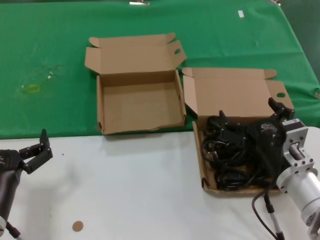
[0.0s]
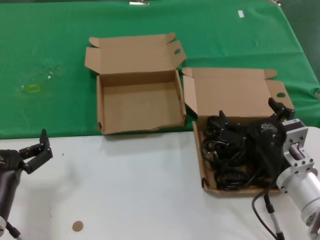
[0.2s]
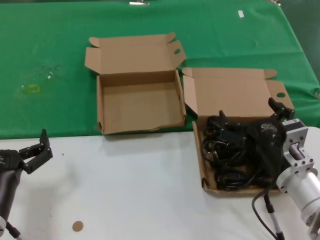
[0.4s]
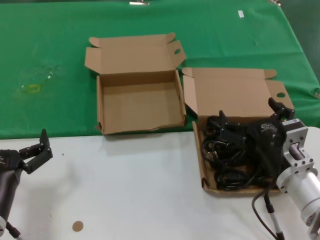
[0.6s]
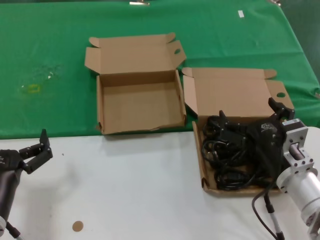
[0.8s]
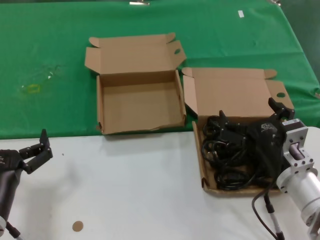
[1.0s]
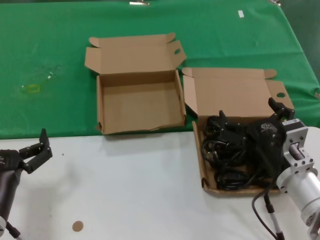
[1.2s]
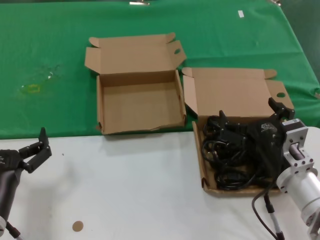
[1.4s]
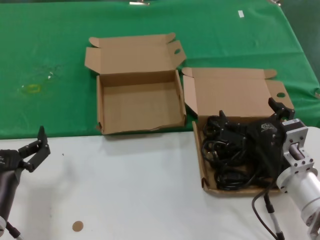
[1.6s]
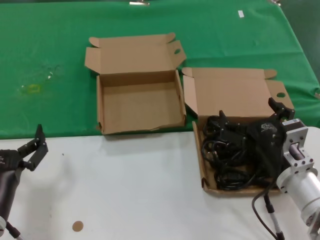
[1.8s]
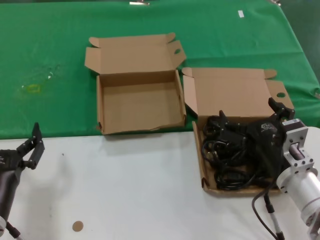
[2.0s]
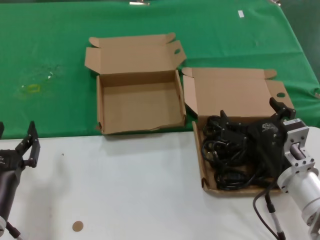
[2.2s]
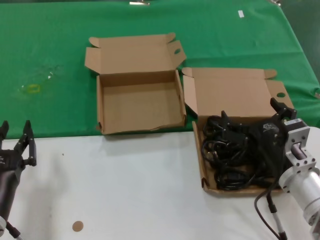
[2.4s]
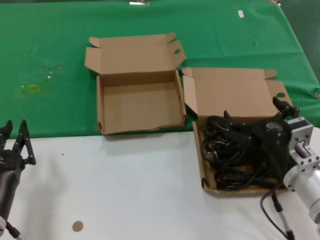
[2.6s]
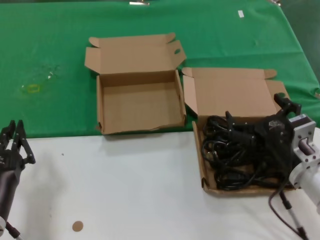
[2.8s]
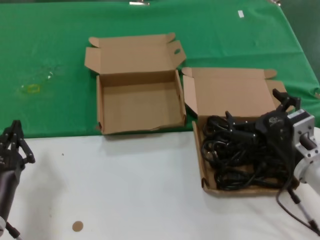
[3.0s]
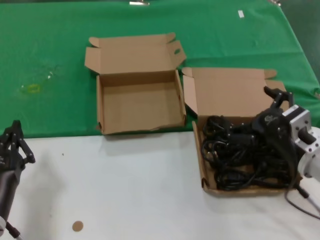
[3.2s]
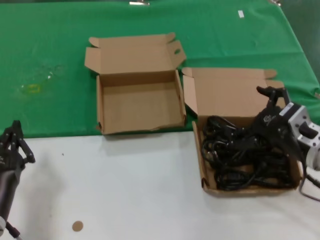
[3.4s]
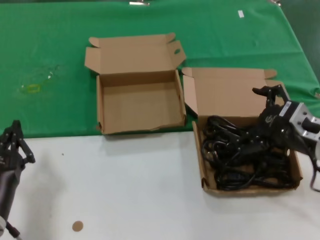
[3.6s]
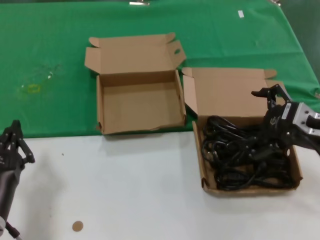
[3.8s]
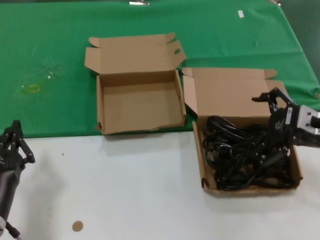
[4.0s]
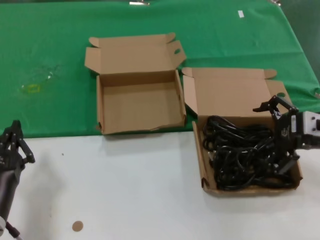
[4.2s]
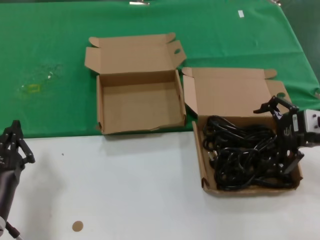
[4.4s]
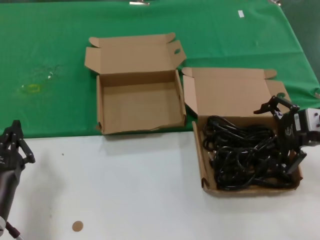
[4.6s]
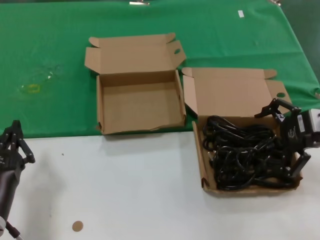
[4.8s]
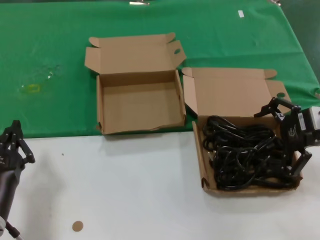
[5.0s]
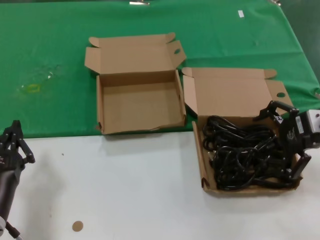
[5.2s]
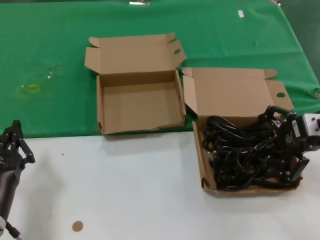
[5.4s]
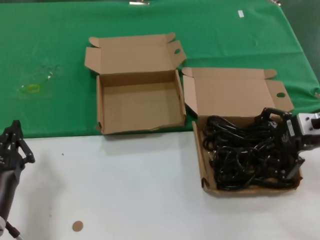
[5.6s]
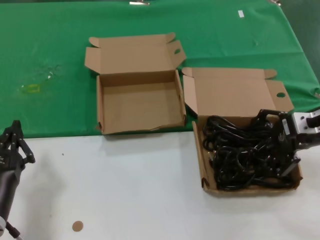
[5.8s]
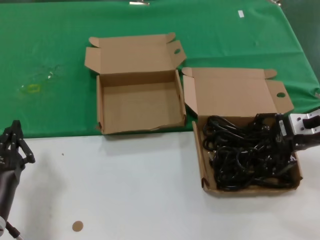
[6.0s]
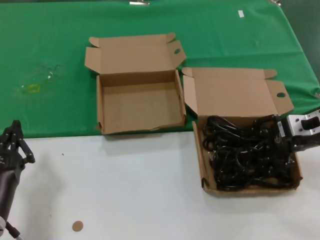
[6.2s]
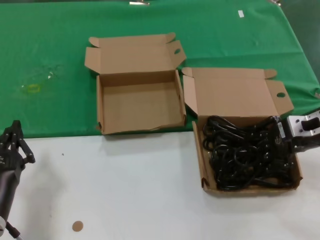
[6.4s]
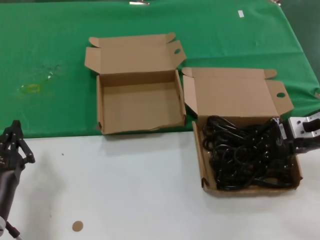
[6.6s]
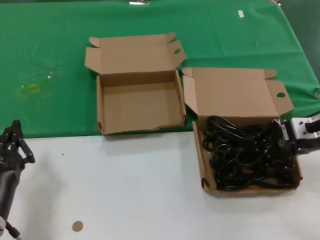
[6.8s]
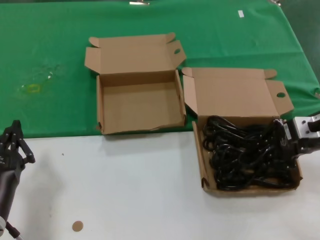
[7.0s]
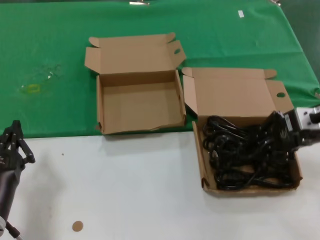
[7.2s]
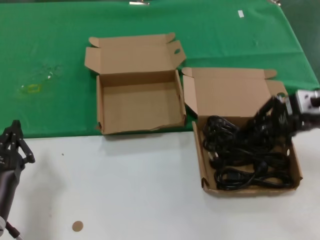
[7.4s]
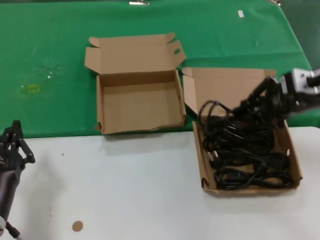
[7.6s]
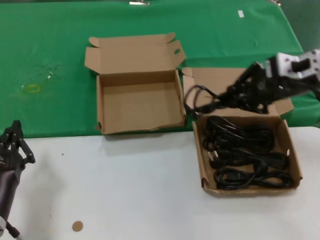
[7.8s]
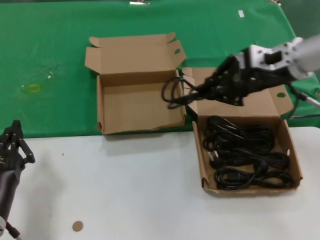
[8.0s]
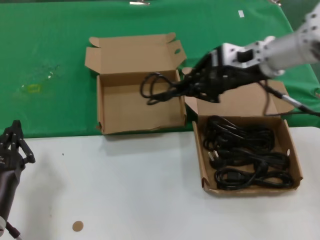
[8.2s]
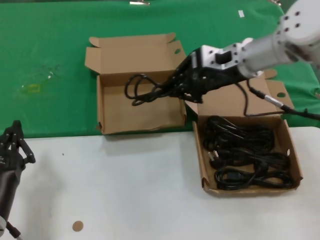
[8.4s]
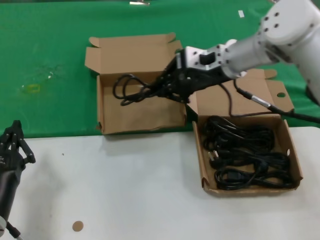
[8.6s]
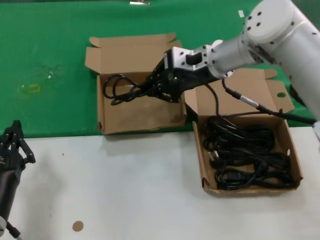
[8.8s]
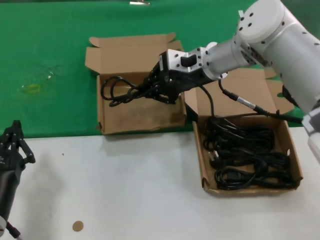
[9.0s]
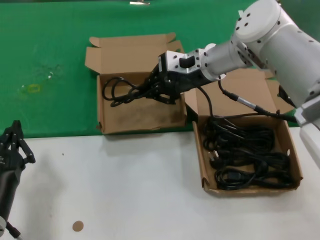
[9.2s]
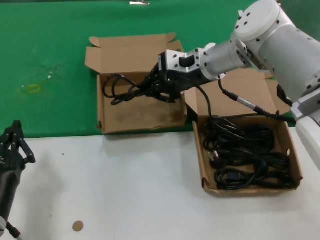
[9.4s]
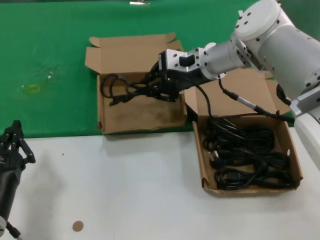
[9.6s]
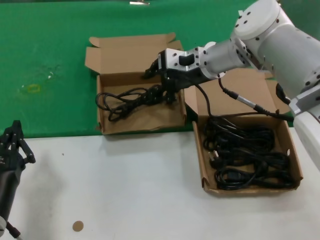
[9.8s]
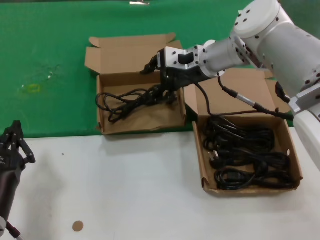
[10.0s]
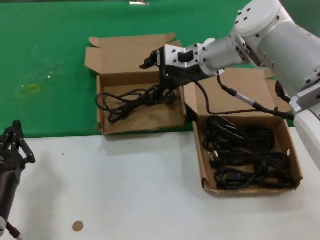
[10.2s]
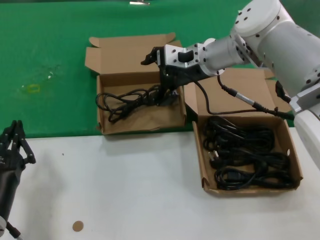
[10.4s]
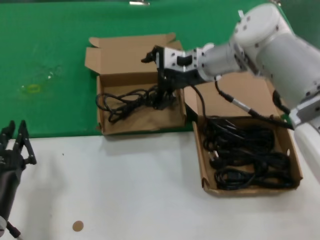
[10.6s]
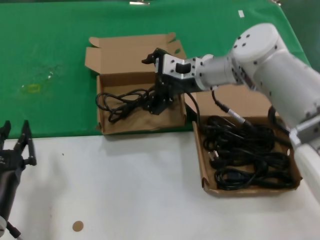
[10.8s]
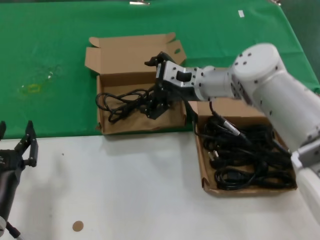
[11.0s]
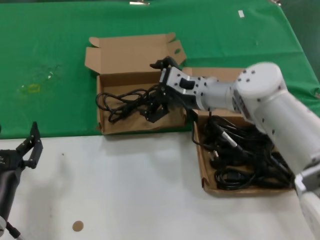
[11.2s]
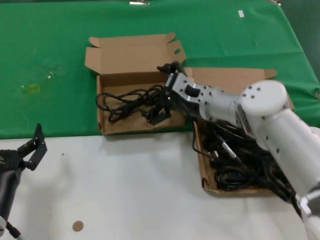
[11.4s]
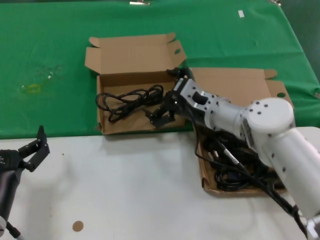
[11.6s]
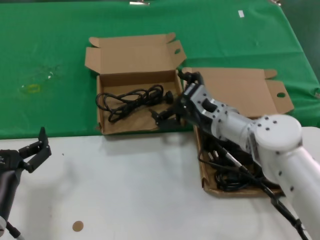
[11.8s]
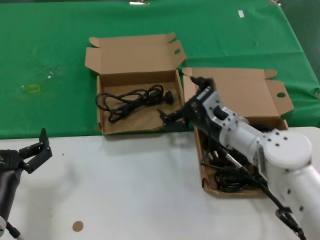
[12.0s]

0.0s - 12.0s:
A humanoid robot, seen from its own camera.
Task of the whole recording: take the parts from the box containing them and put them into an empty box.
Step, 0.0s - 6.8s: Grasp the data cable.
Step, 7.0s - 9.8s: Place the data cable in the another box.
0.0s - 1.6s: The two hands keep their place.
1.6s - 3.0s: The hands stay close to where they were, moving slightly.
3.0s - 4.4s: The right hand is displaced upward, to the right and forward by about 15 cm.
4.4s - 6.0s: The hands stay close to where they were, moving slightly.
6.0s - 7.6s: The right hand heads upward, covering some 10 cm.
7.6s - 9.0s: The right hand moves to the left and forward, about 25 cm.
9.0s - 10.4s: The two hands keep their place.
10.4s - 12.0s: The right hand is displaced downward and backward by some 20 cm.

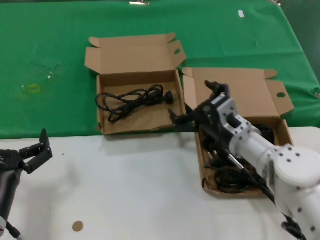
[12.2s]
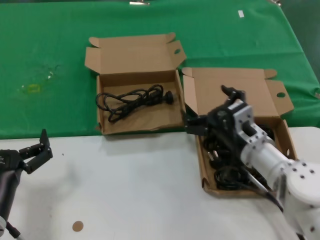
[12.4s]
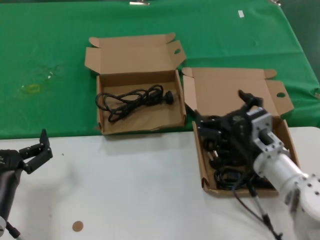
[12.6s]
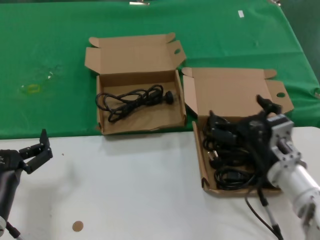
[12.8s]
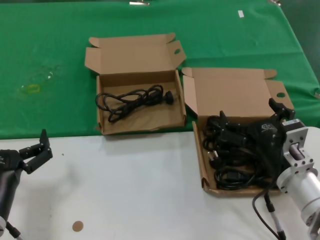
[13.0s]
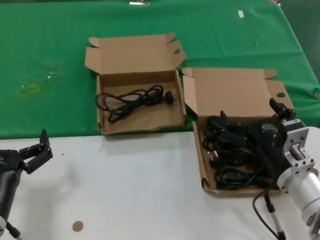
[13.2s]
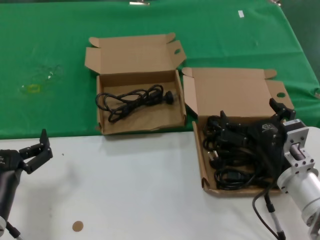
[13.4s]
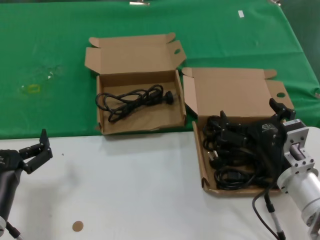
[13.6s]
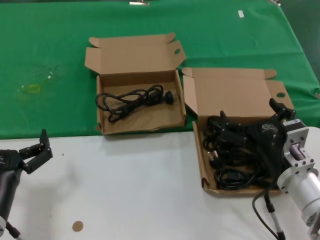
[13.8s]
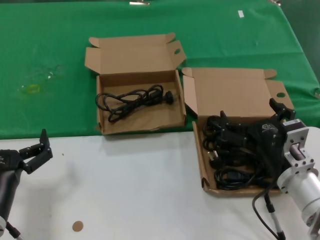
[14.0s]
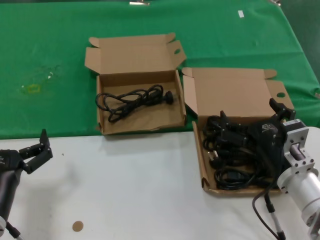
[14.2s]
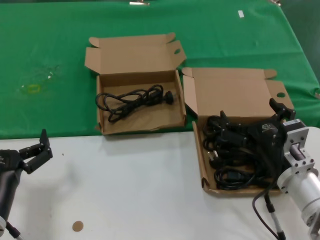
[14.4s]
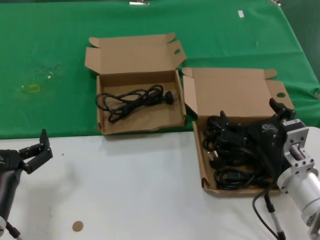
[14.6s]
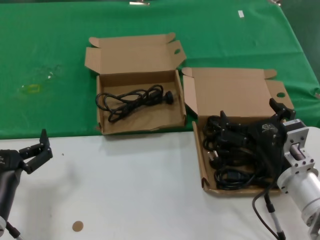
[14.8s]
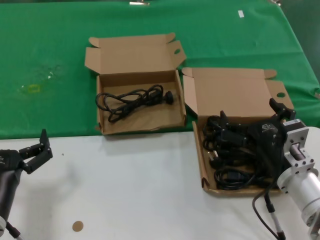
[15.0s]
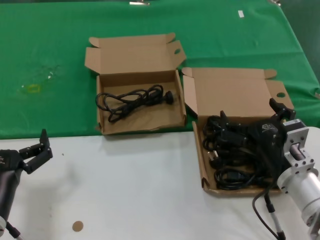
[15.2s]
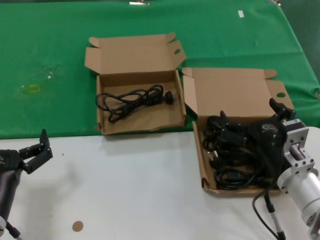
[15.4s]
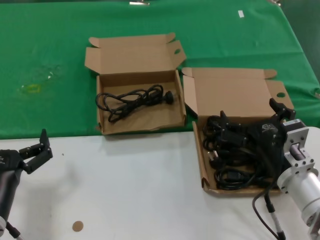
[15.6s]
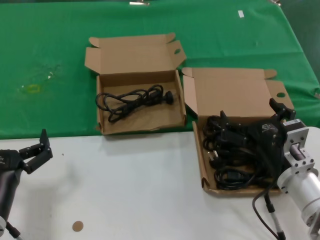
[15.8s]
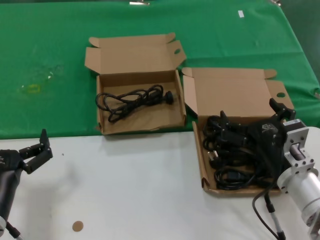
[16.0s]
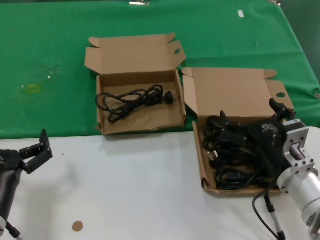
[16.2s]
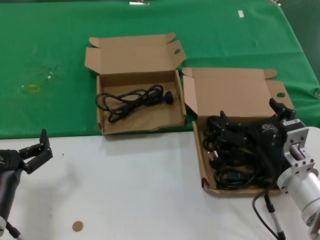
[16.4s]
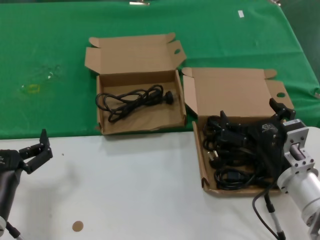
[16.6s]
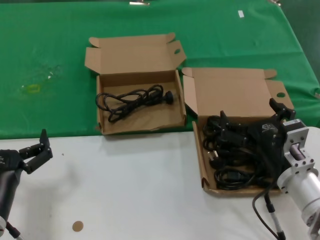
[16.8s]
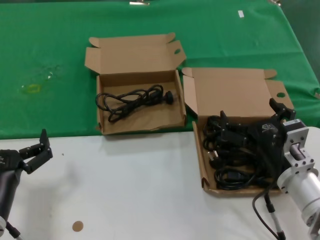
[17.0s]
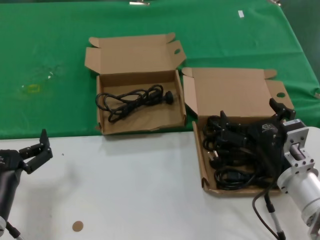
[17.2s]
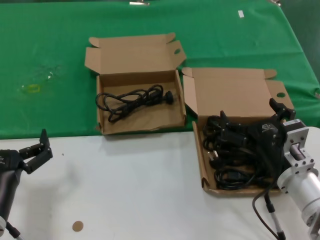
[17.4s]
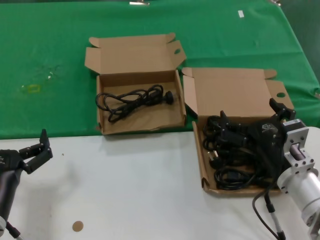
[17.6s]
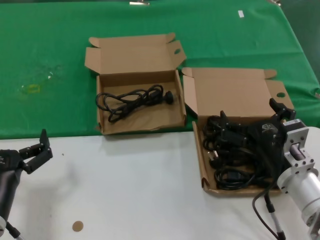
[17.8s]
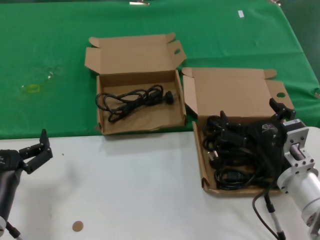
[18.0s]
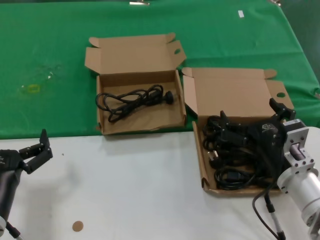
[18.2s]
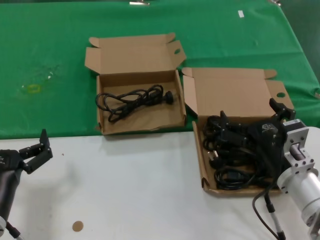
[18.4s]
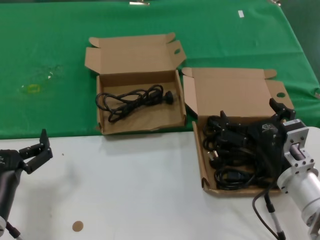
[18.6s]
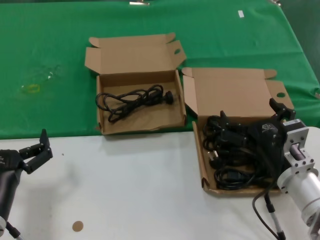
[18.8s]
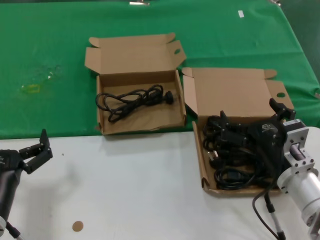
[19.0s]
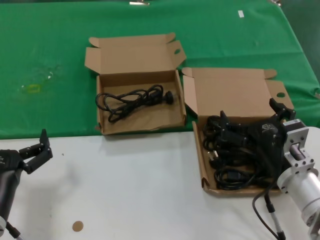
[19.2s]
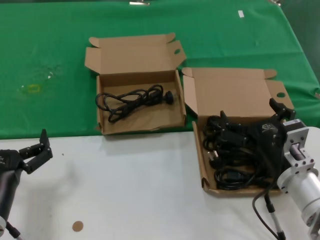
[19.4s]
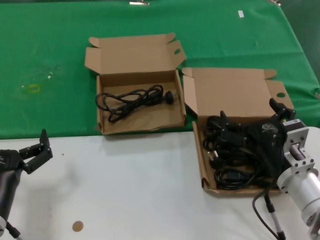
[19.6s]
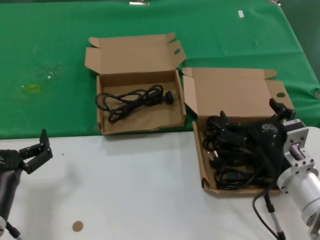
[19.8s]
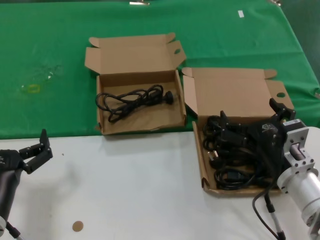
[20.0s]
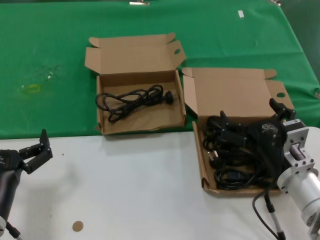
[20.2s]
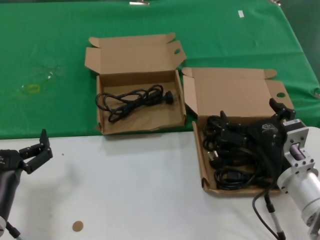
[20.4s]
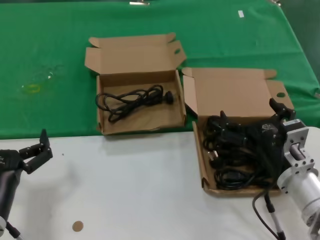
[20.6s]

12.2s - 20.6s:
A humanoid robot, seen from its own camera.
Task of the whole recording: take the parts from the box containing them and put them into an empty box.
12.2s - 13.6s: The right hand heads backward, covering approximately 10 cm.
13.6s - 20.6s: Both hands stay put.

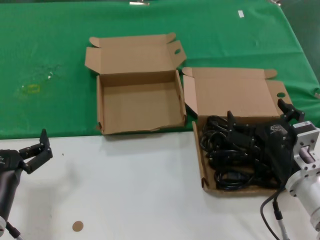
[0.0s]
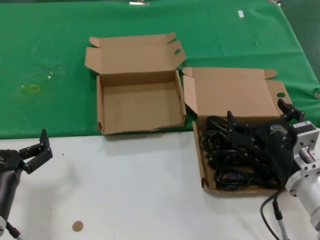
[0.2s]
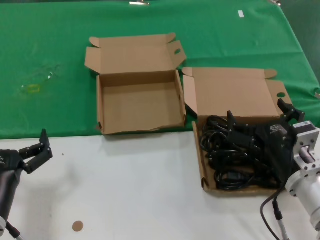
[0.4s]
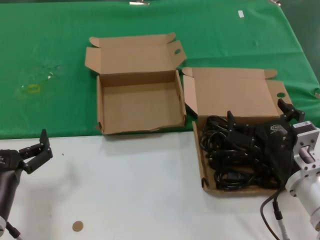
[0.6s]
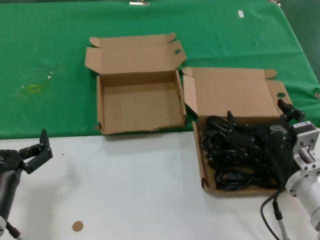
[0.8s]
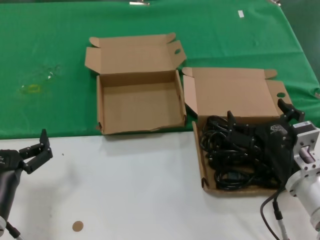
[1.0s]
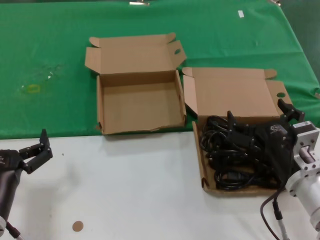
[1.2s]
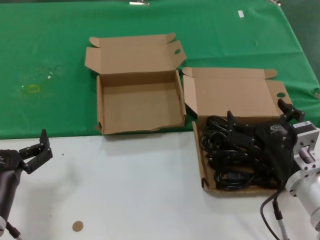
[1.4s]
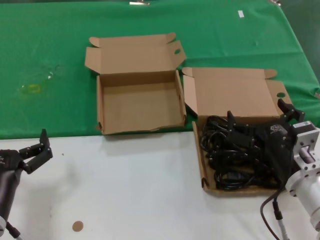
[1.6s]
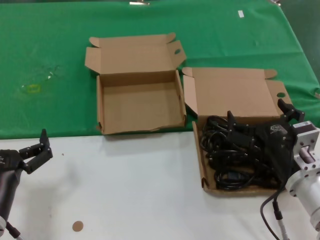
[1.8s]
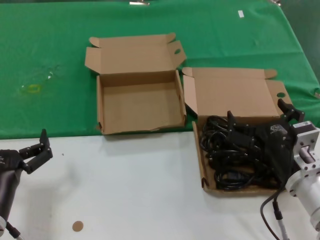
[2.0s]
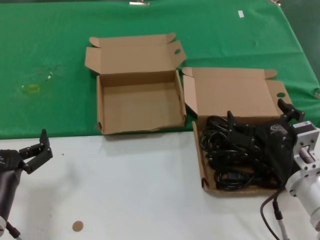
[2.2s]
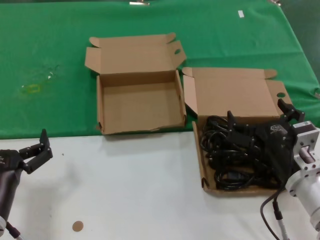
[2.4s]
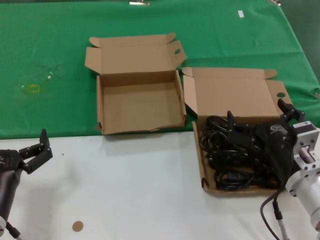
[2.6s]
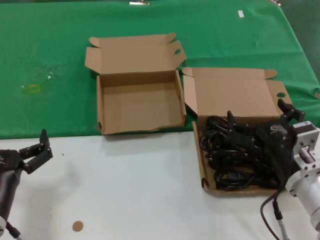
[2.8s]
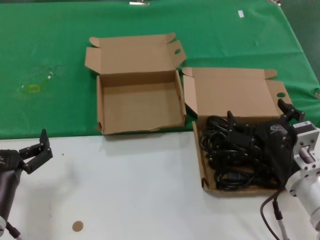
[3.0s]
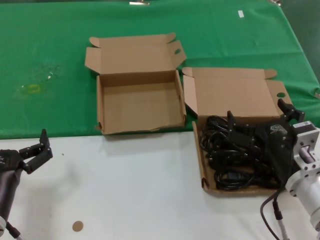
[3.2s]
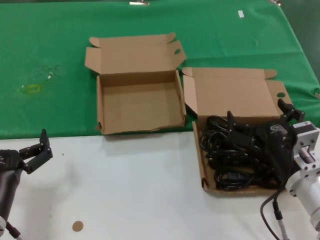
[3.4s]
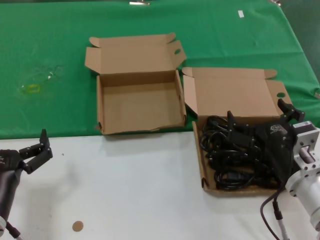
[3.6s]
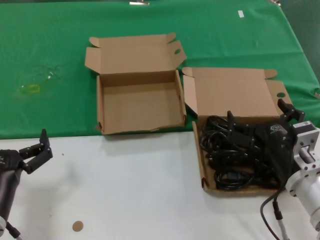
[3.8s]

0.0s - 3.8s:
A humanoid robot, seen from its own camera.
Task of the whole recording: take the parts from the box containing them and put them into an empty box.
0.0s - 3.8s: Both hands stay about where they are.
